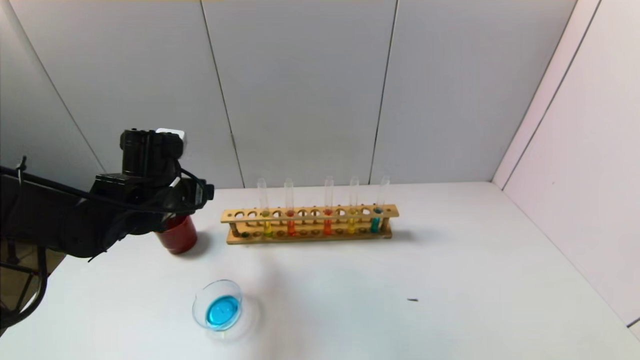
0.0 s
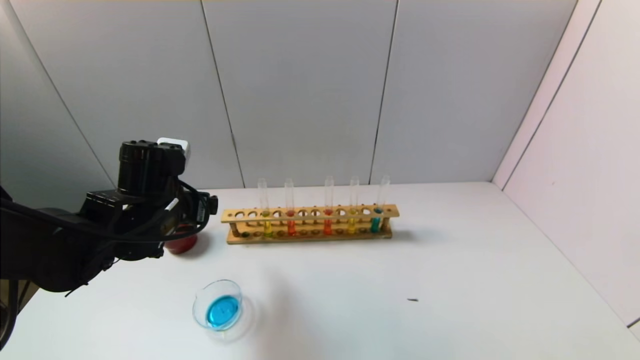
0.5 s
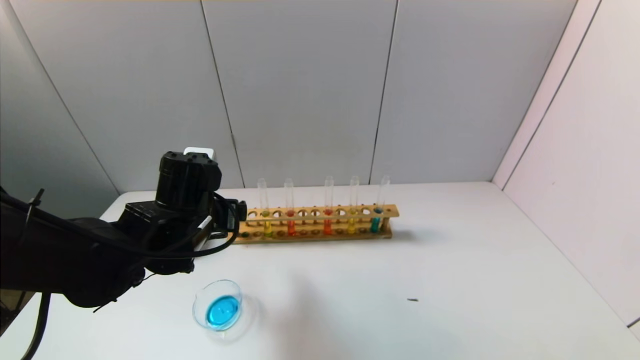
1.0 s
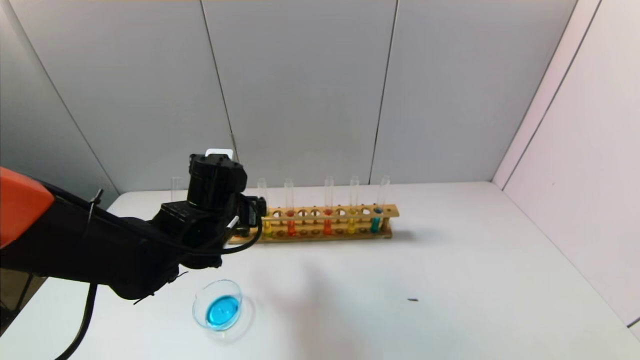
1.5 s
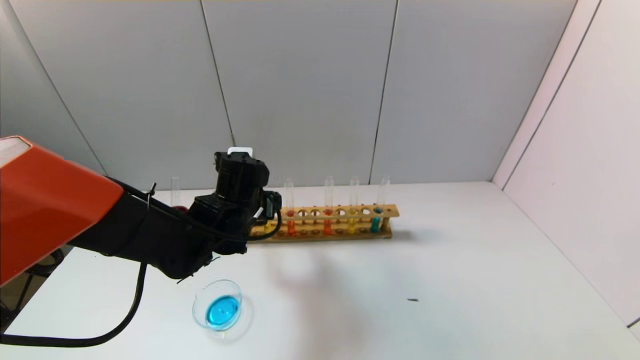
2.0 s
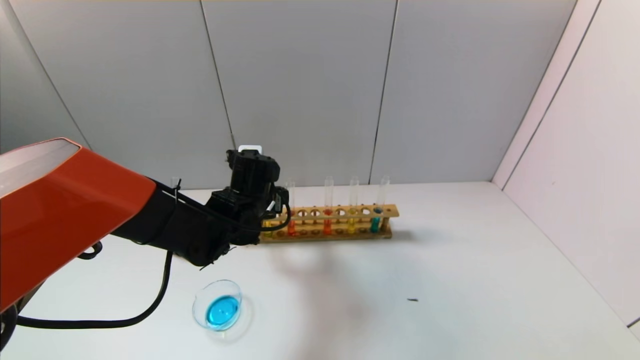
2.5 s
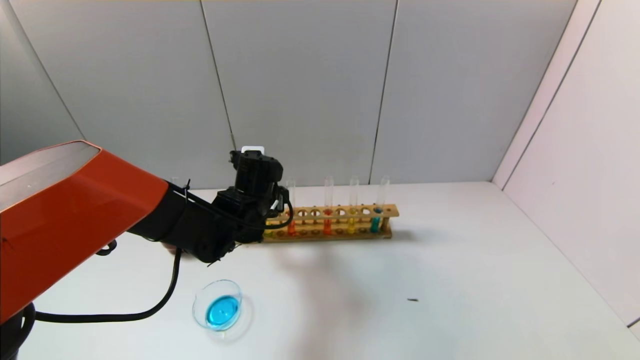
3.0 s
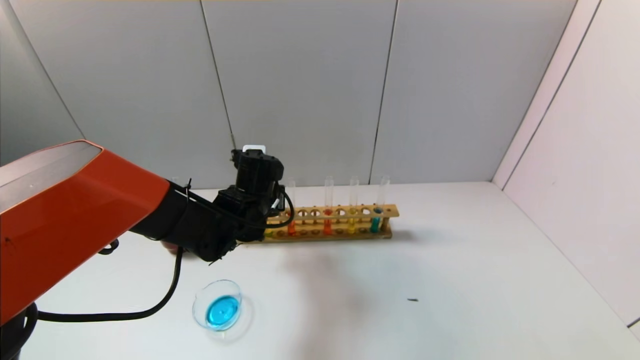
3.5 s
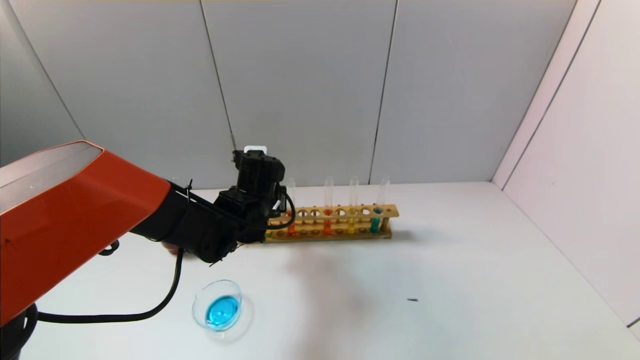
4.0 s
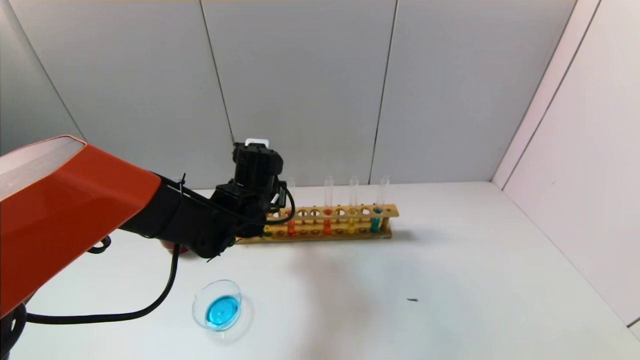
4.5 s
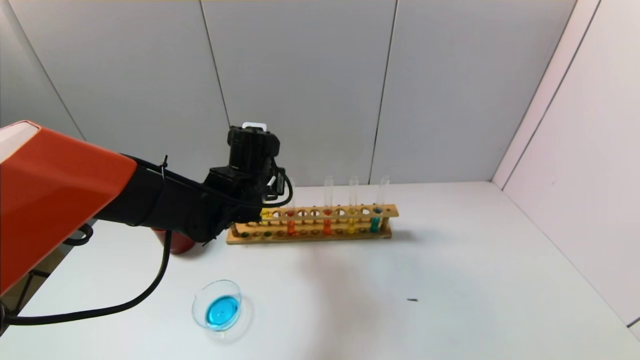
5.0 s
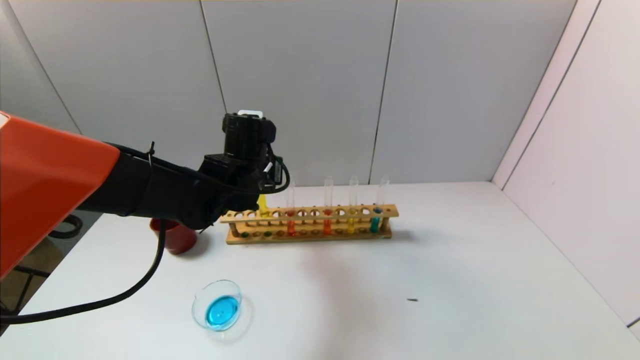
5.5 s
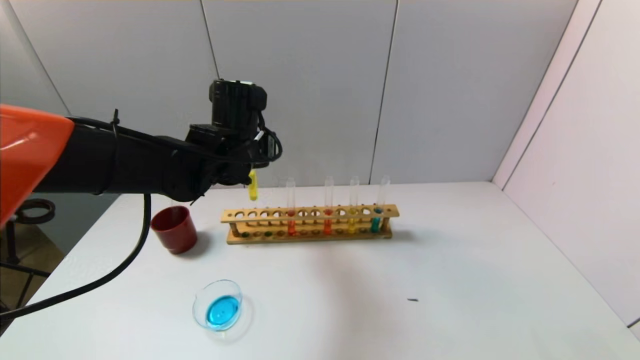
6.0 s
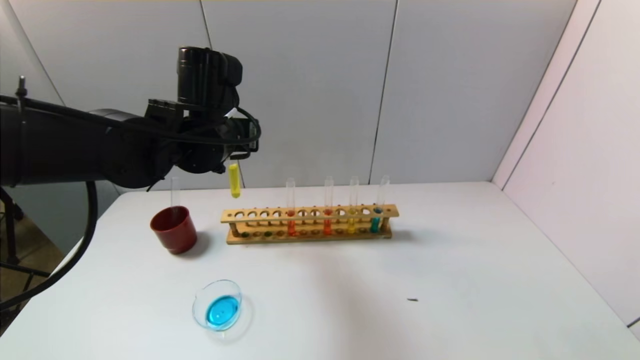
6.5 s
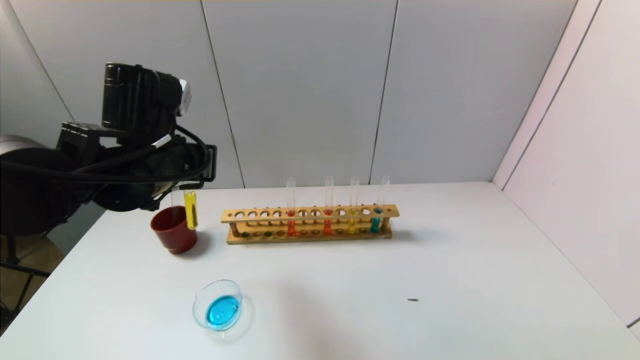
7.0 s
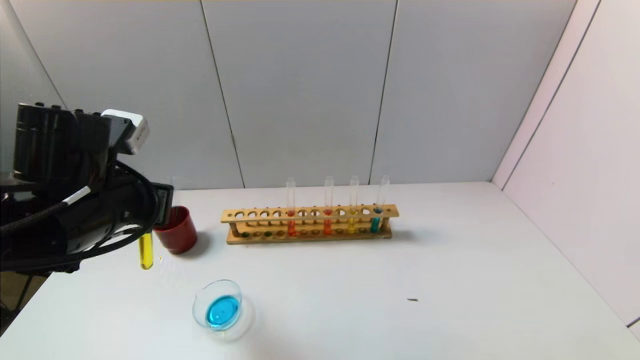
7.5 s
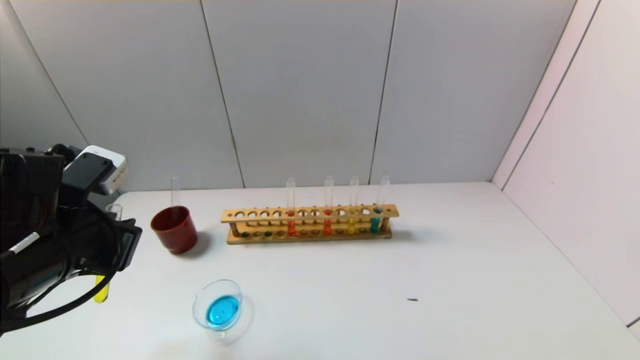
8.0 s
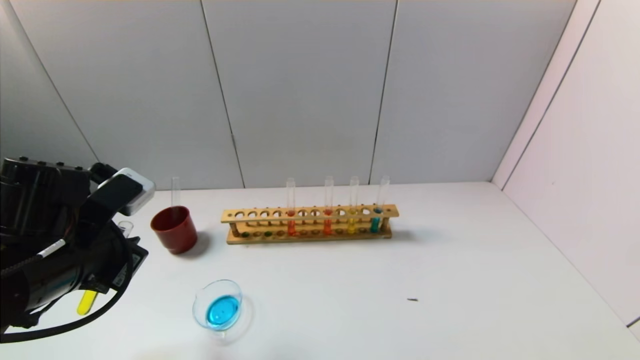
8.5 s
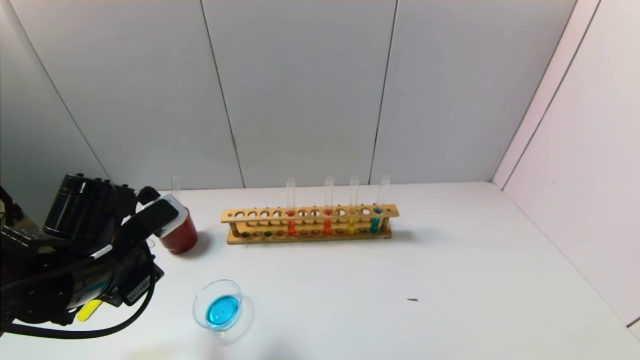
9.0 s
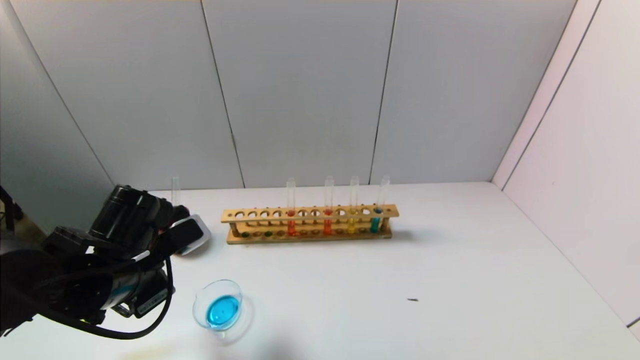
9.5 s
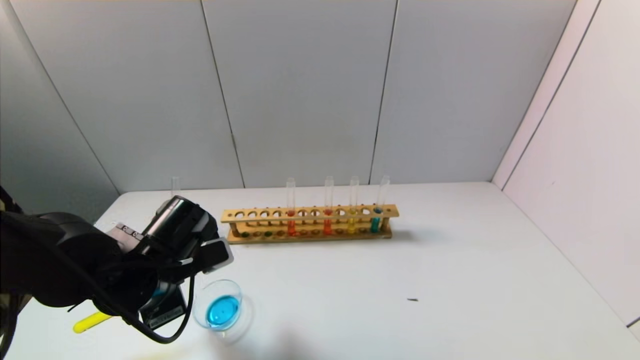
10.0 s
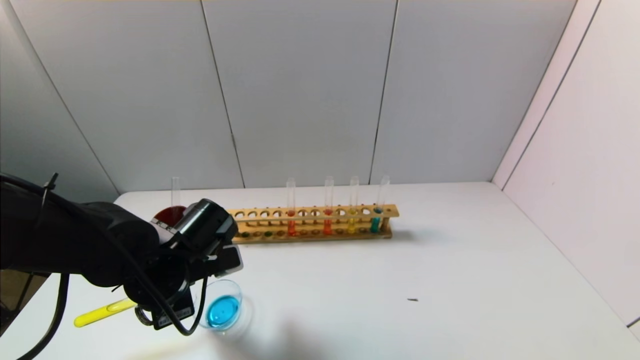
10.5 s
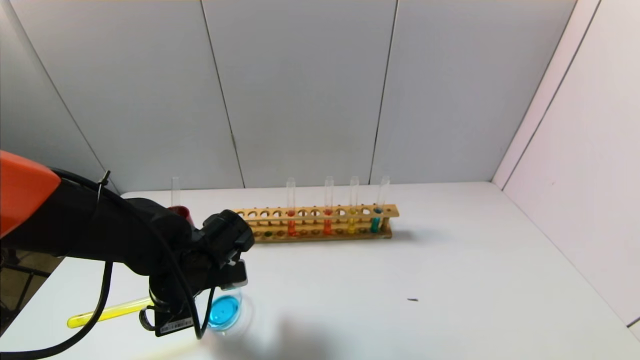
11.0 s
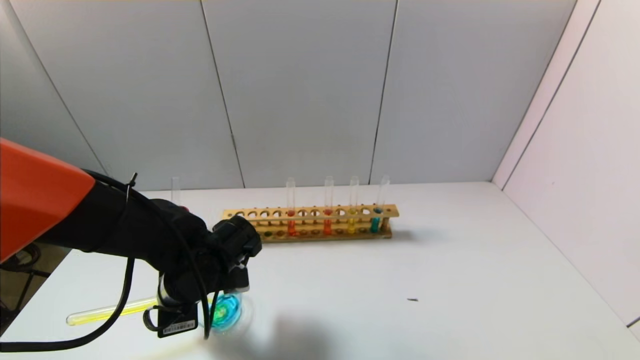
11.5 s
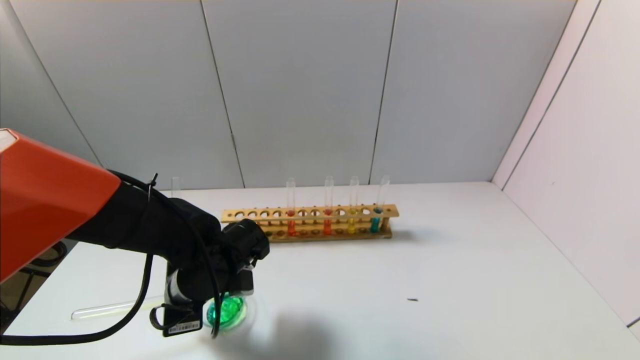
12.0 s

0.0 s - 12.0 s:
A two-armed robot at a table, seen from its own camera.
Task of the whole recording: pick up the test tube with yellow pigment and the test tube with blue pigment by grippers and pour them into the beaker.
Step, 0.0 s - 4.0 s: Grasp the yellow reagent with the left gripper.
0.0 s - 2.0 s: The left gripper heads to the right, covering some 10 cm.
2.0 s - 4.0 s: The left gripper closes its fingers.
4.0 s - 6.0 s: The left gripper goes roughly 10 cm upward.
6.0 s - 8.0 s: The left gripper is displaced backward and to the left by approximately 20 cm.
8.0 s - 10.0 s: The left gripper moves downward and to the right, about 10 cm.
10.0 s - 12.0 s: The left gripper shifts by roughly 5 cm.

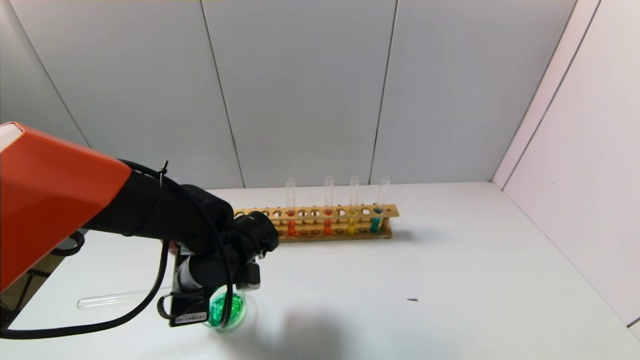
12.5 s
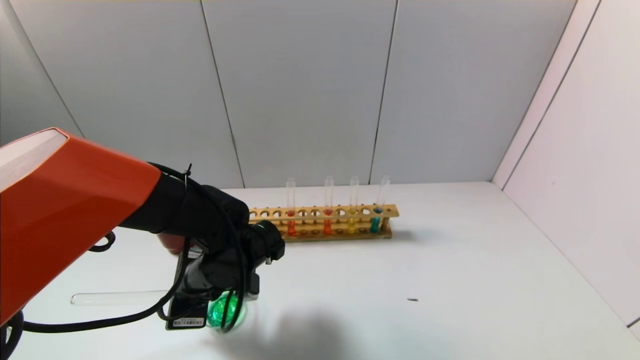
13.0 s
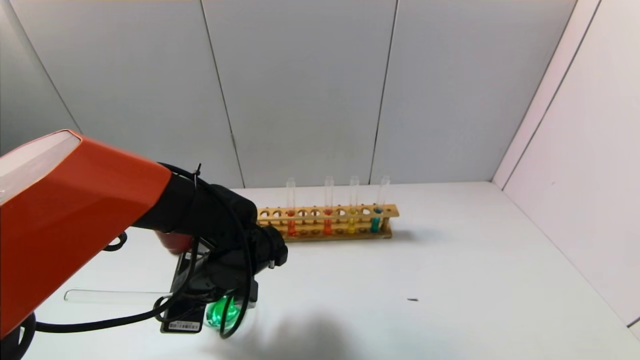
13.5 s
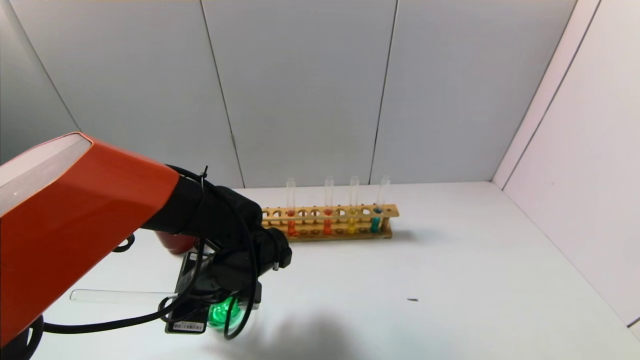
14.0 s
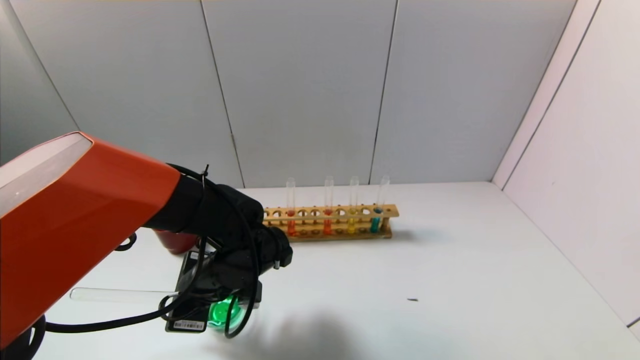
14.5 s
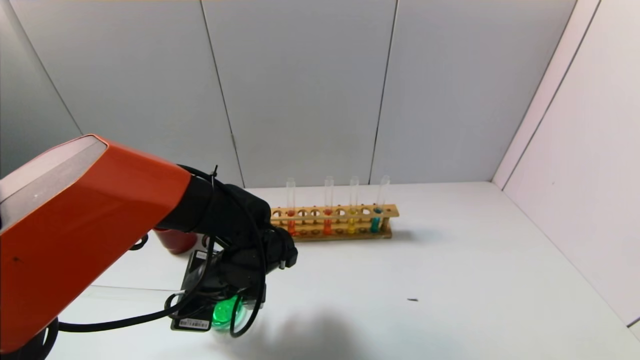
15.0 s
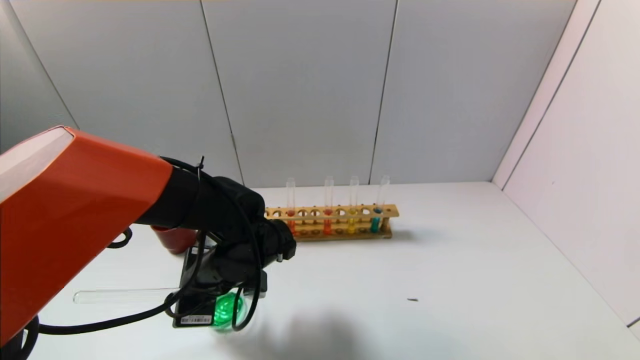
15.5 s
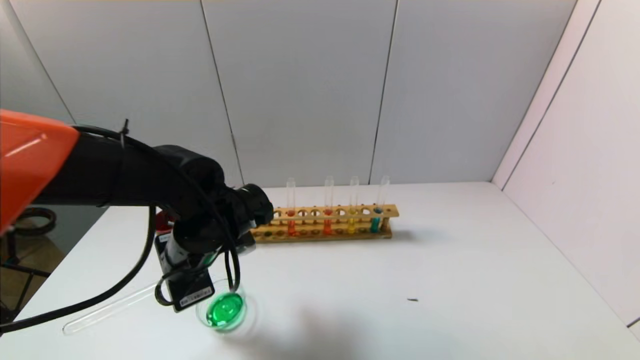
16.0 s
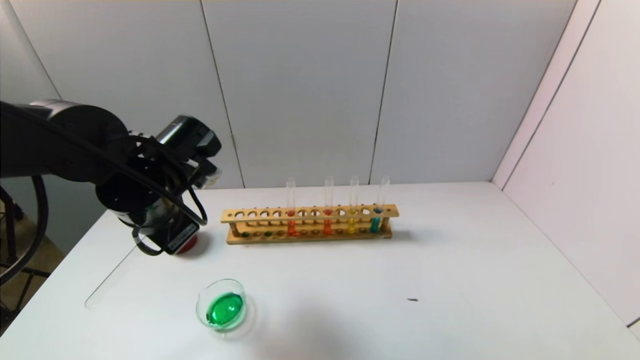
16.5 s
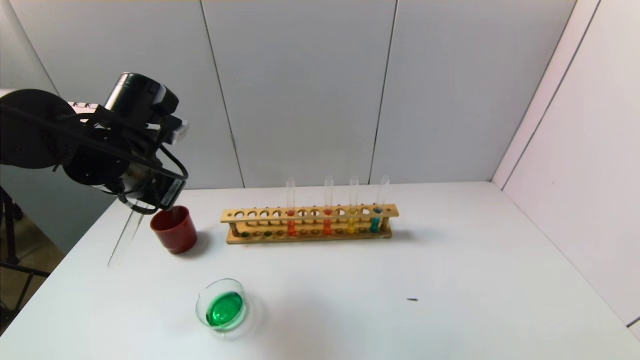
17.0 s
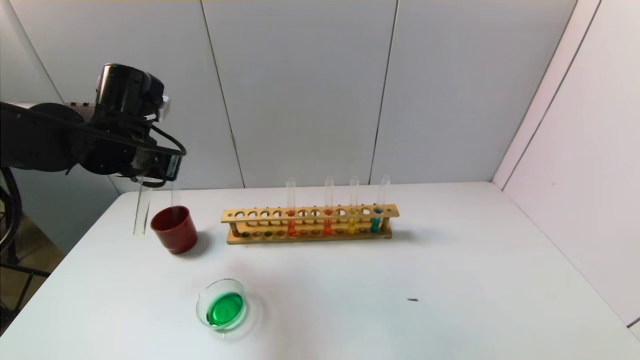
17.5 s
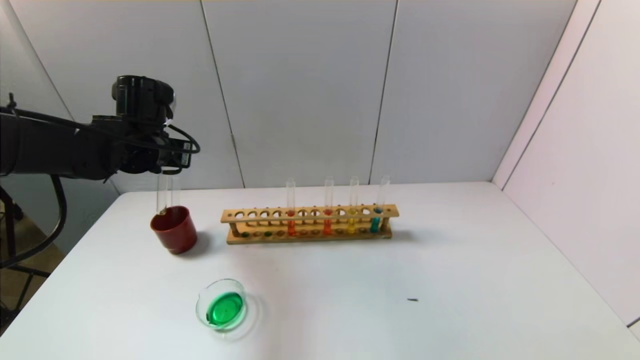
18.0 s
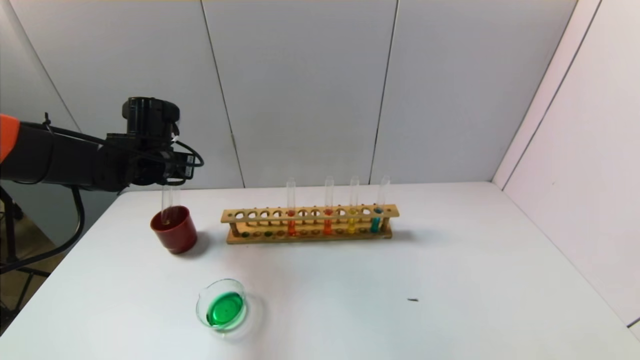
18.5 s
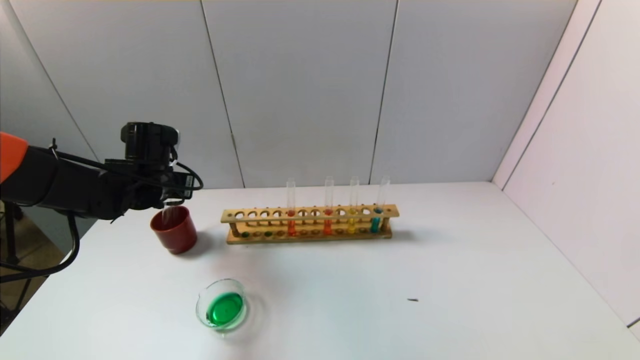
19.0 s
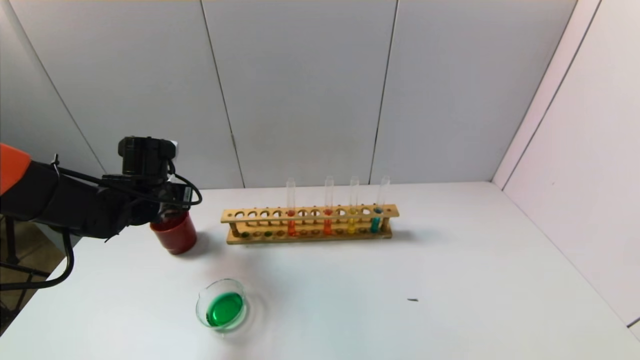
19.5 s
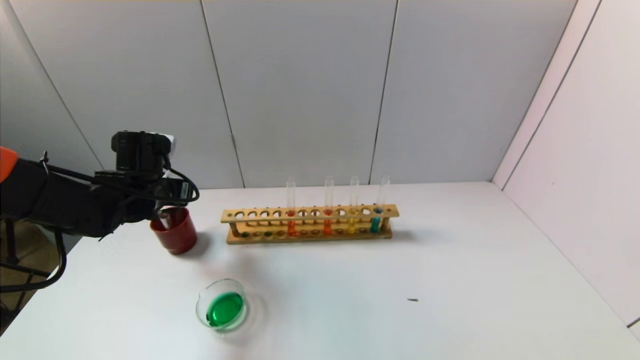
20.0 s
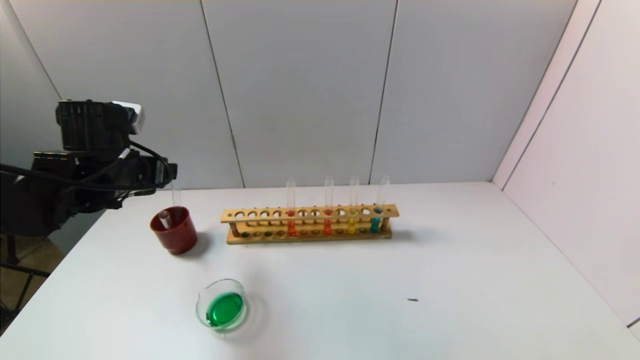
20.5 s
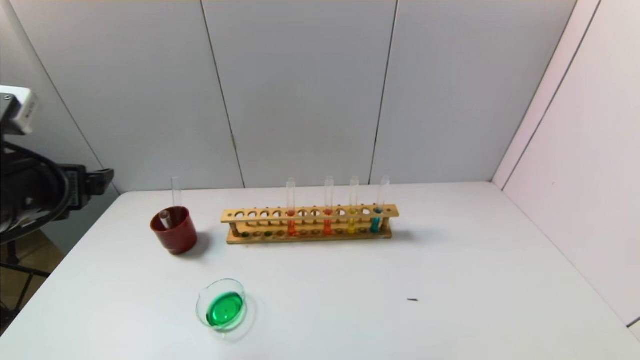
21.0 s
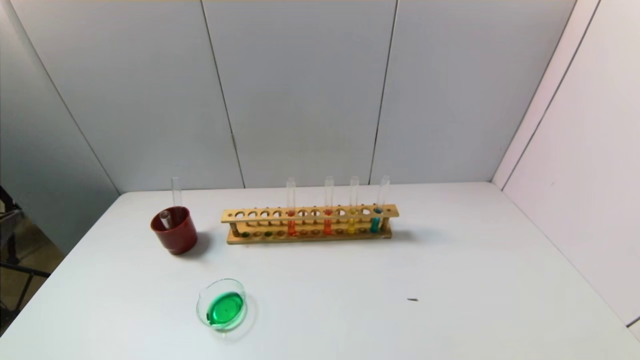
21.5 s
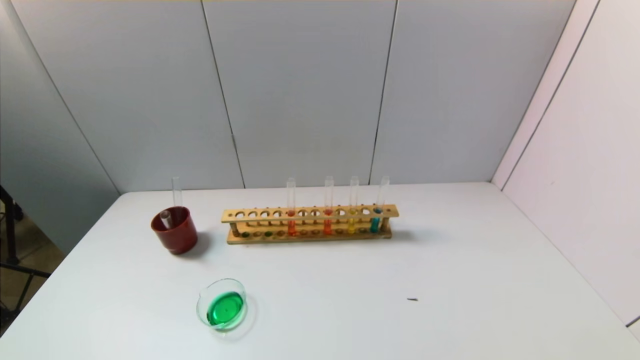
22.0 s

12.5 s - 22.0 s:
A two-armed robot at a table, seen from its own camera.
Task of the whole recording: pick up the test tube with yellow pigment and the test tube with blue pigment by grippers and pour them into the beaker.
Step, 12.5 s - 15.5 s: Pour the yellow reagent into the graduated cylinder with the left gripper.
Step, 16.0 s - 20.0 s: Place the test tube into the brown cup with the left gripper.
12.5 s - 14.5 s: The grippers move only a little.
14.5 s - 16.5 s: The left gripper shifts approximately 15 cm upward and to the left.
16.5 s - 18.0 s: The left gripper goes some 10 cm forward and to the left.
18.0 s - 20.0 s: The left gripper moves downward, approximately 5 cm, and opens its fingers.
20.0 s - 22.0 s: The left gripper shifts some 35 cm backward.
